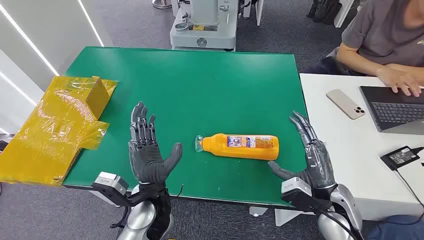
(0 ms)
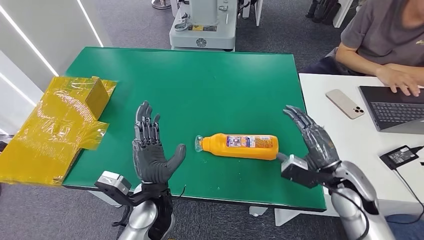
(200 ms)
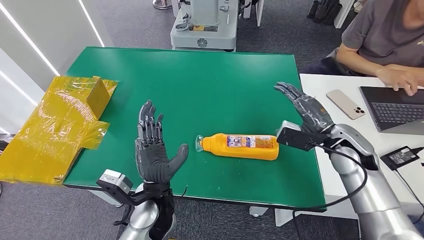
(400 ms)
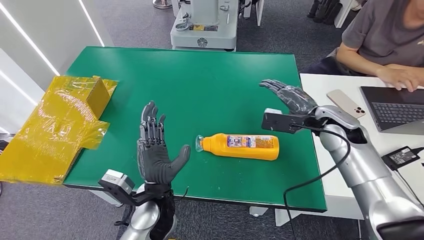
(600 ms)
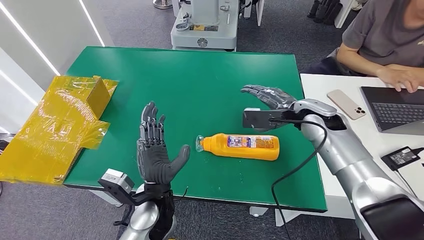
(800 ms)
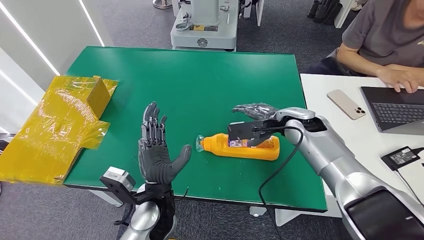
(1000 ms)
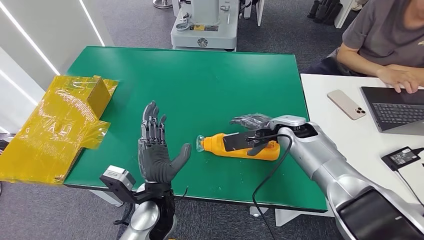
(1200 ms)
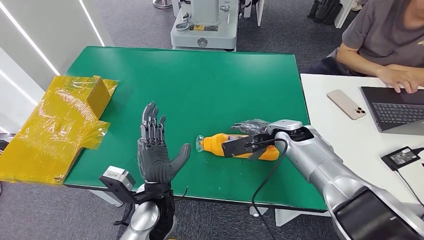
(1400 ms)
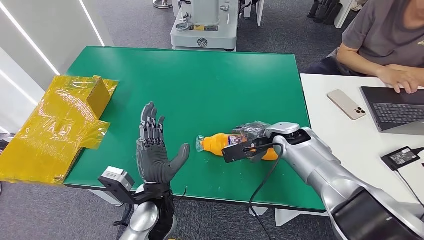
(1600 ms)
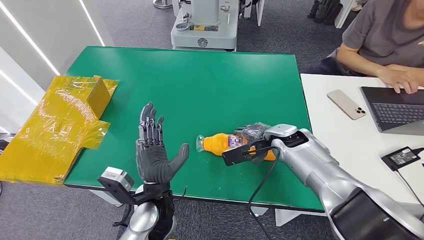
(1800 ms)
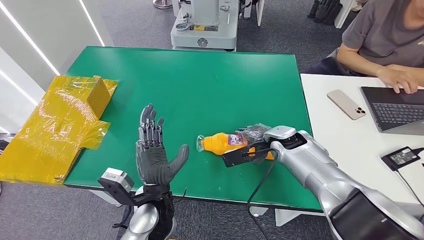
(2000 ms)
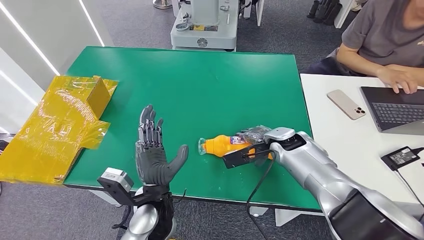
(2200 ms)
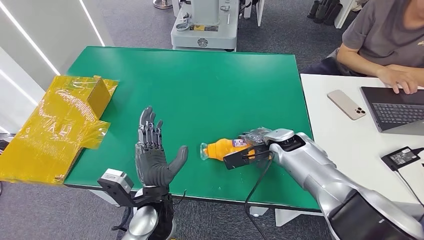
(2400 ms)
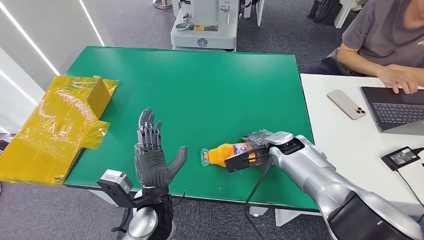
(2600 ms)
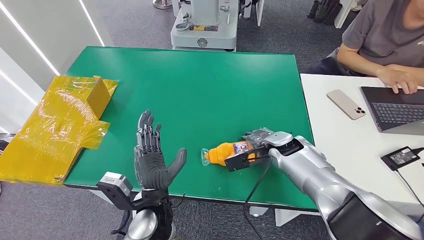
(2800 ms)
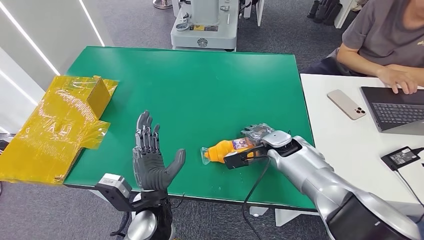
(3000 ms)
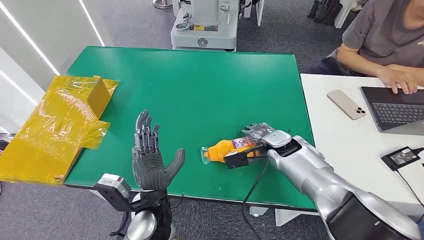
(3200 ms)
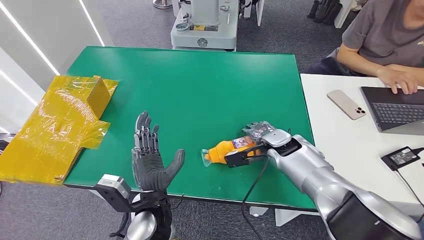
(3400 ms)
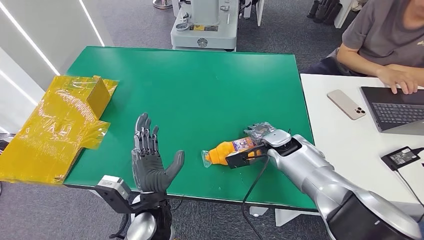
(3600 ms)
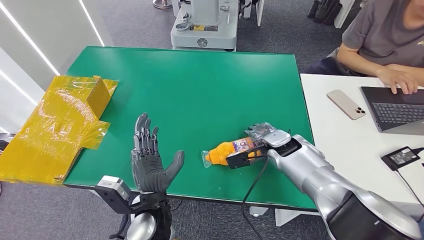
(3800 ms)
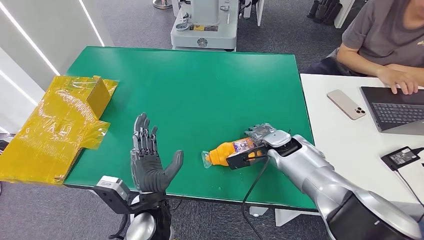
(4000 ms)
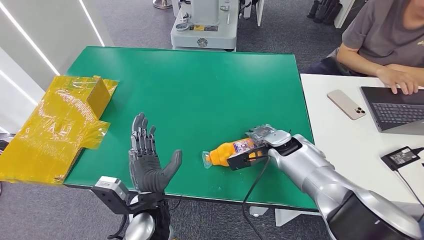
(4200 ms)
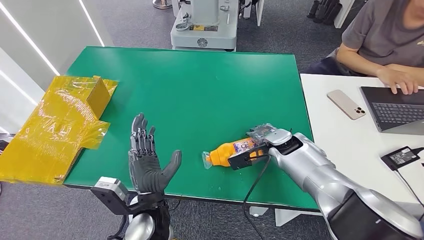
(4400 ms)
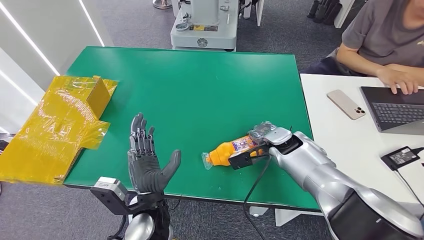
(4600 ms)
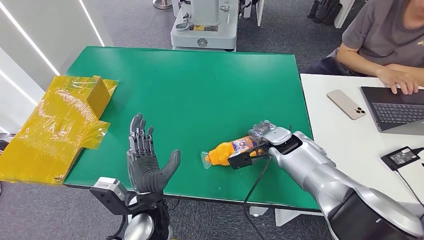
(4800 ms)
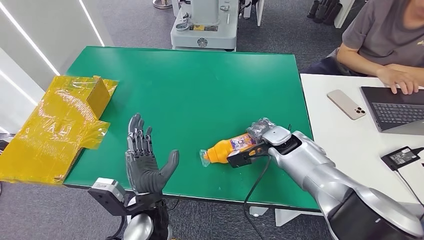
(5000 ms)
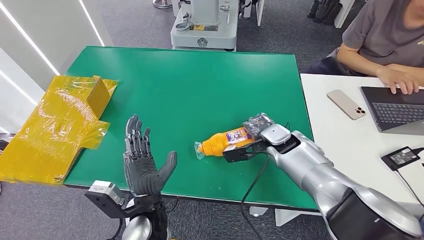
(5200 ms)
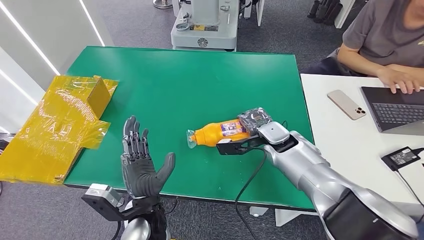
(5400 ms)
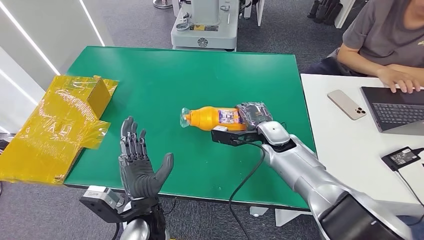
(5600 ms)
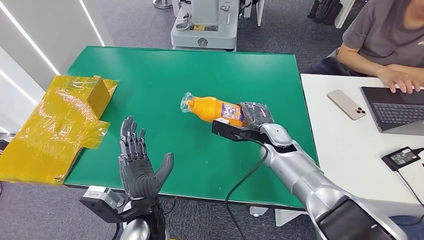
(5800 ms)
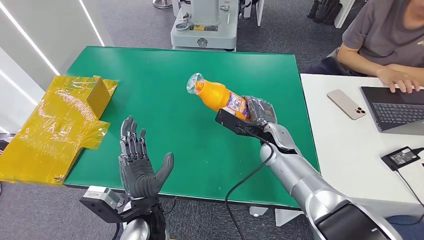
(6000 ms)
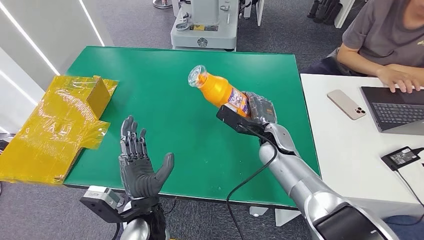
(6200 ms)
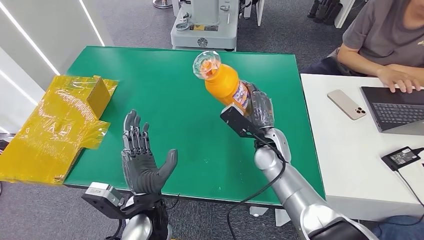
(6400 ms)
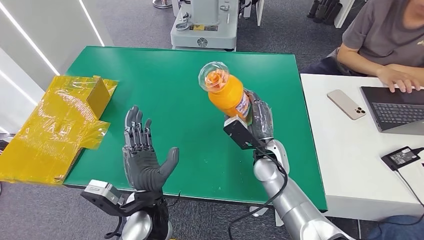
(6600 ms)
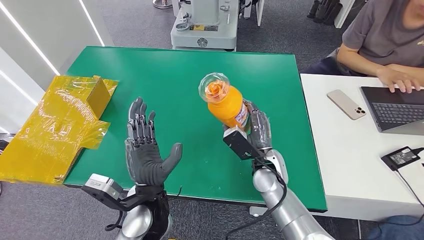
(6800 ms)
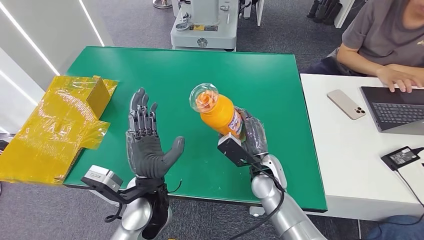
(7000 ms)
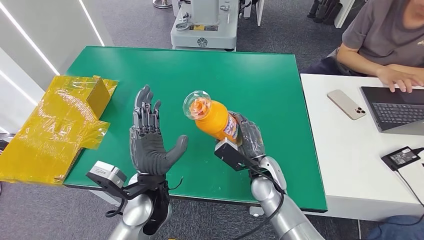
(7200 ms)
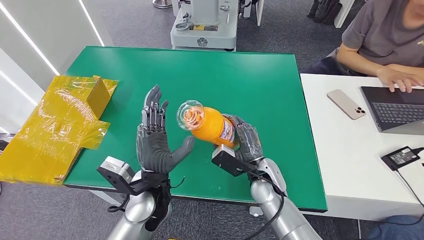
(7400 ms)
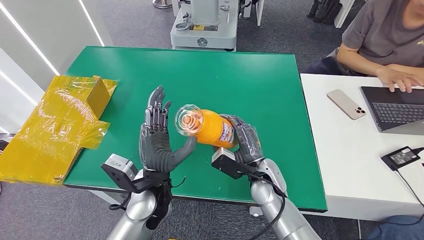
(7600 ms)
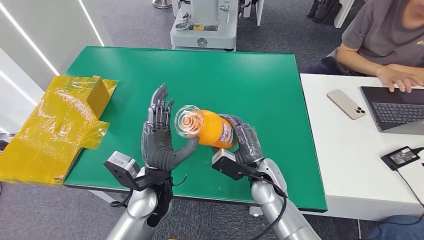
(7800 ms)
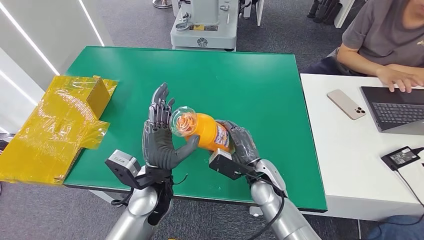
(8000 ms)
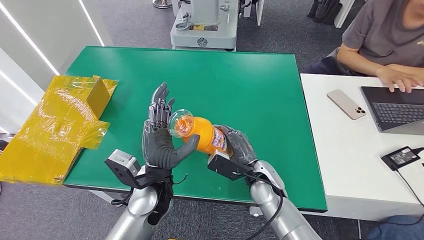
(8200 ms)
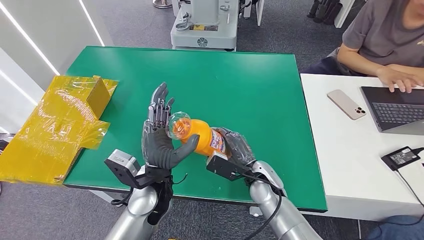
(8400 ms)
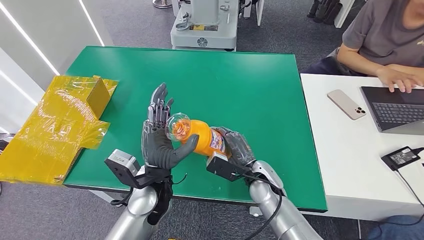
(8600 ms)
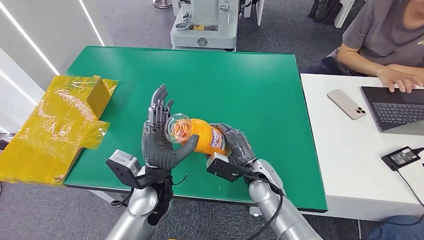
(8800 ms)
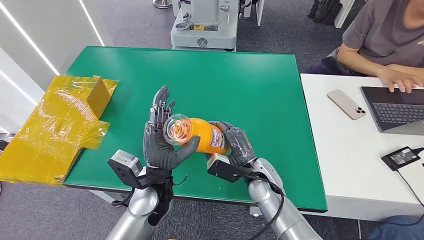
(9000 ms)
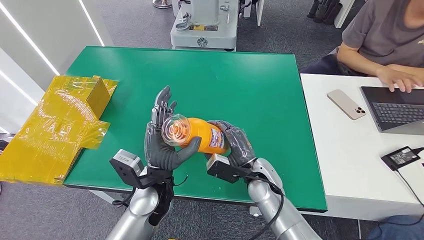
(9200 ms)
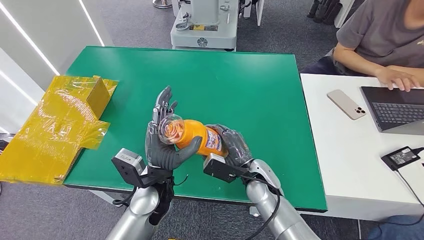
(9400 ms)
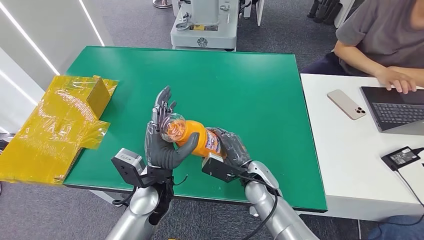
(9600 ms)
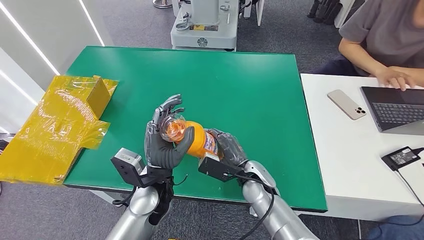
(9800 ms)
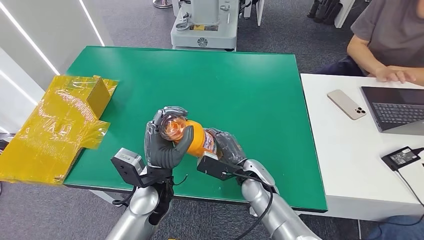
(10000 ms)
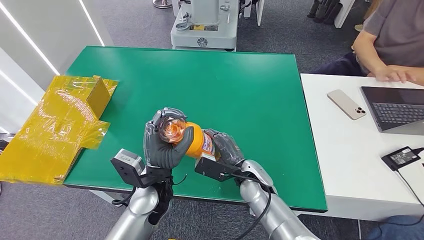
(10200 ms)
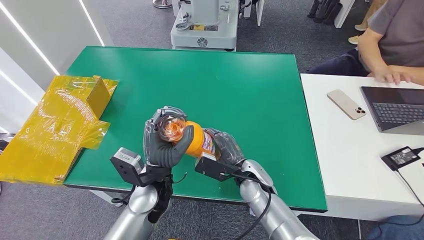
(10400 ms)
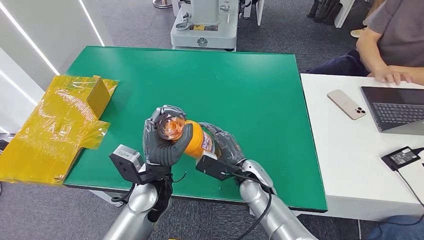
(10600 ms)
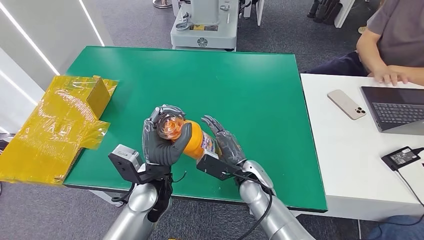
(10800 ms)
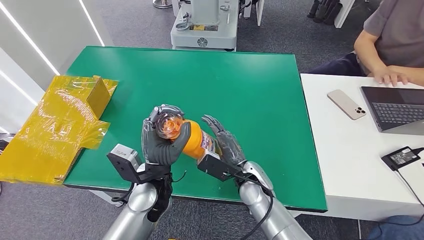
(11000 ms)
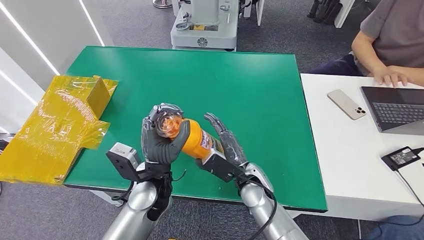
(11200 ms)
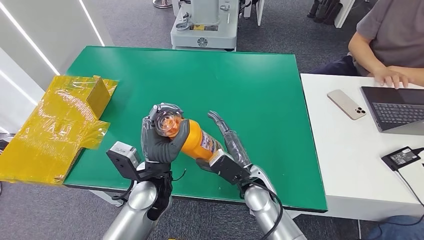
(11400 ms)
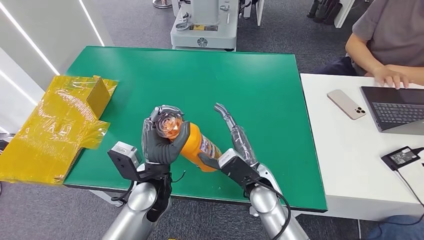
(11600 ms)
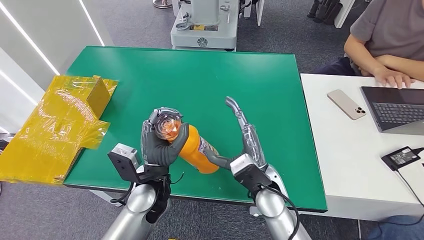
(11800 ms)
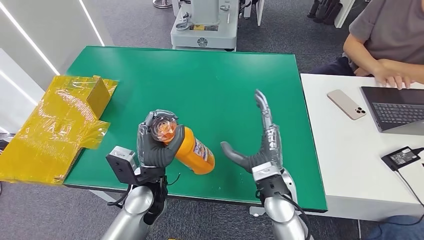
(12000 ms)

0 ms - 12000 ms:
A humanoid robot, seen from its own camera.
Step, 0 ms - 6200 ms: Pick up the bottle from the table.
3000 ms - 4400 ms: The hands move only a little.
4400 ms - 6000 ms: The right hand moves about 5 cm.
6000 ms - 7600 ms: The right hand goes about 15 cm backward, to the left and downward, while the left hand is displaced forward by roughly 5 cm.
7600 ms - 10400 ms: The hands move only a little.
10400 ms - 12000 ms: The right hand heads upward, covering roughly 5 cm.

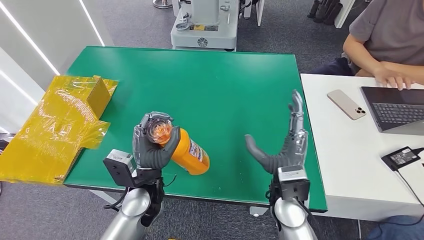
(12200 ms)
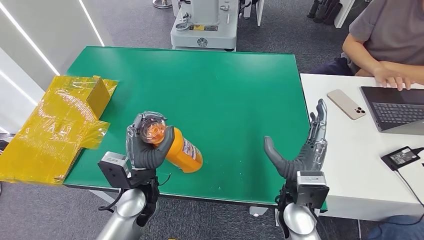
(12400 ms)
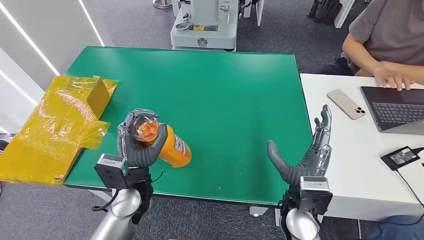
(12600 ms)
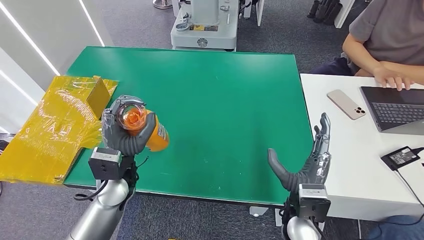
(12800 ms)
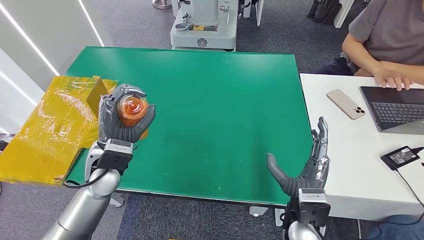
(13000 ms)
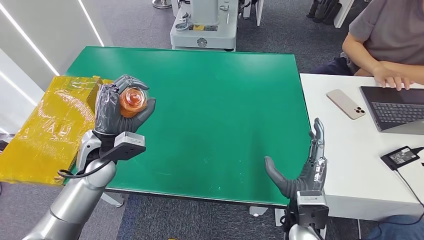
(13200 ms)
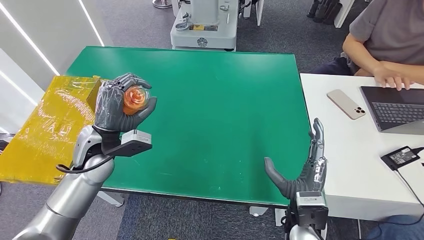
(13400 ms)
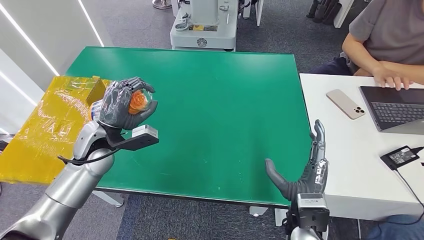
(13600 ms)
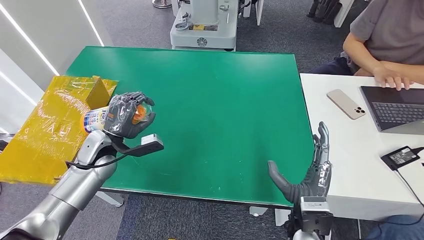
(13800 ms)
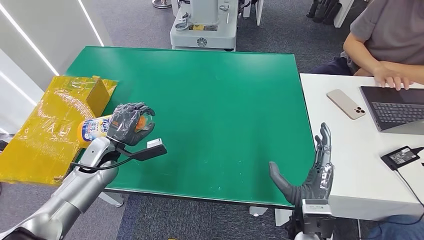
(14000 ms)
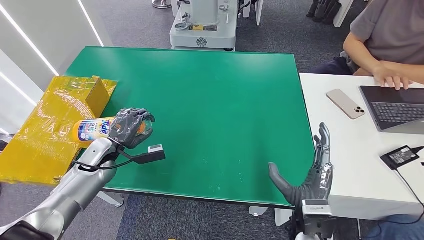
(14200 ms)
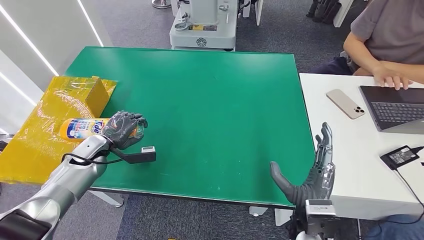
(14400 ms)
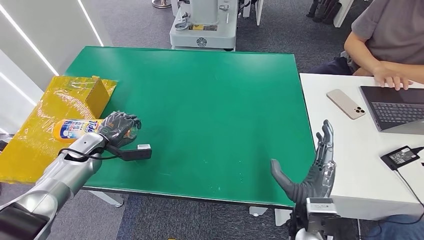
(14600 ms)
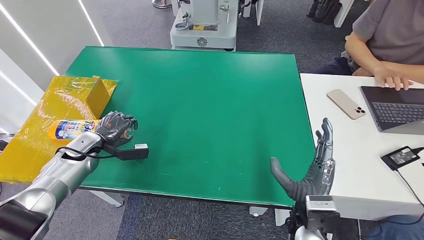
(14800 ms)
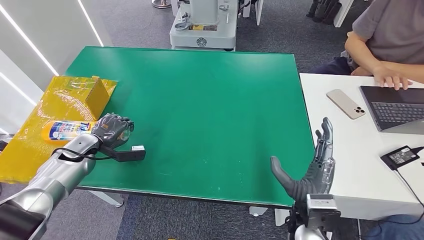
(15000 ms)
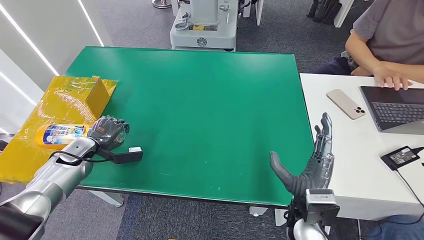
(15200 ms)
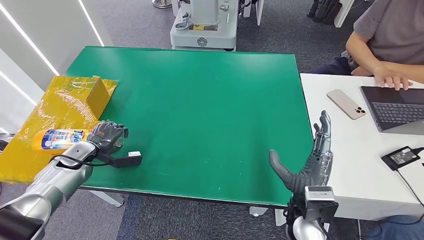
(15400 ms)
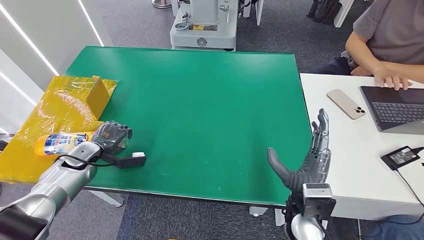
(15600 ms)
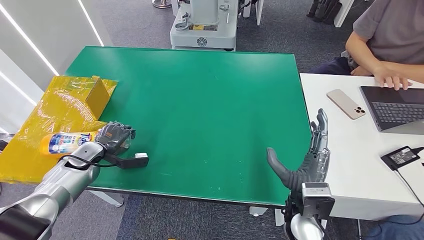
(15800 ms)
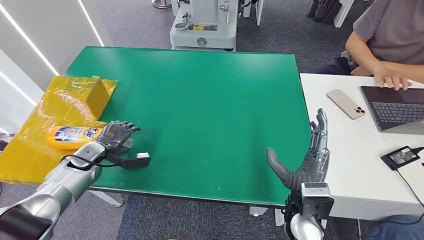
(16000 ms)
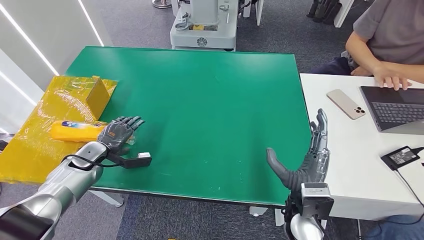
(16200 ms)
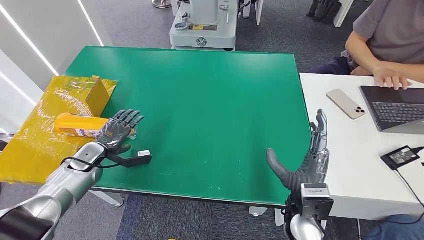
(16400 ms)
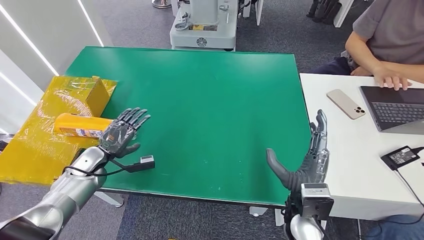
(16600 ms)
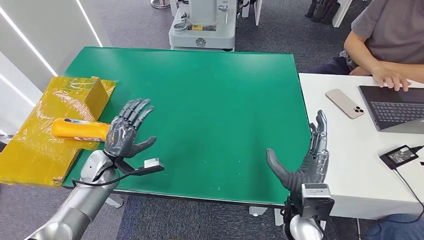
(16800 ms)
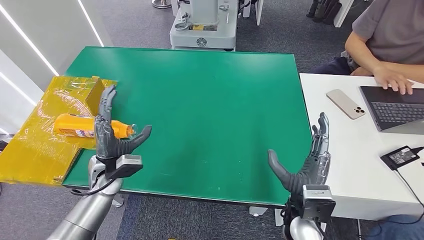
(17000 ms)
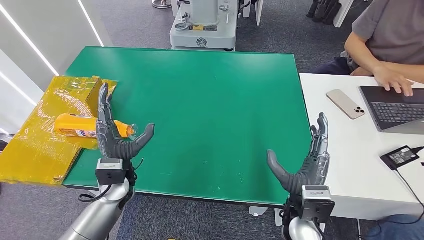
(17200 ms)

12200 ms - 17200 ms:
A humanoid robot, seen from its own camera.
Step, 12200 ms - 17200 ms: Turn the bottle to the front side.
12200 ms - 13800 ms: The right hand goes roughly 5 cm backward. Meanwhile the left hand moves to the left and forward, about 20 cm.
13800 ms - 15600 ms: The left hand heads to the left and downward, covering about 10 cm.
15600 ms - 17200 ms: The left hand moves to the right, roughly 15 cm.
